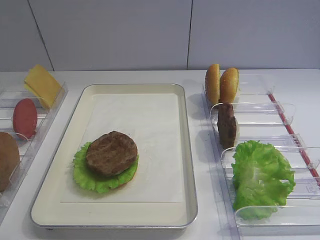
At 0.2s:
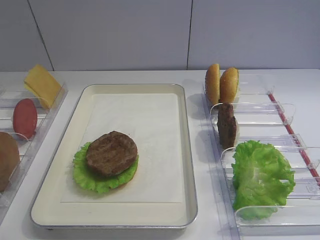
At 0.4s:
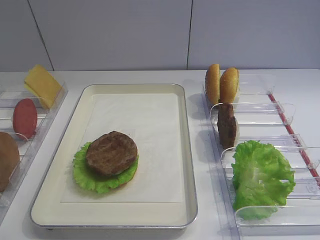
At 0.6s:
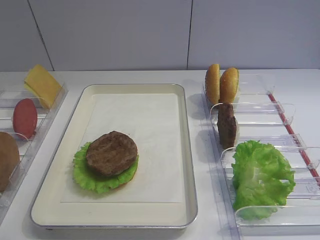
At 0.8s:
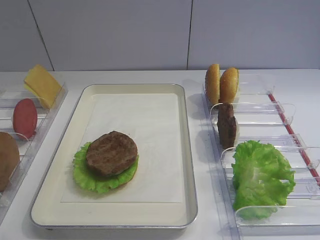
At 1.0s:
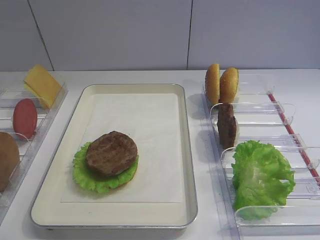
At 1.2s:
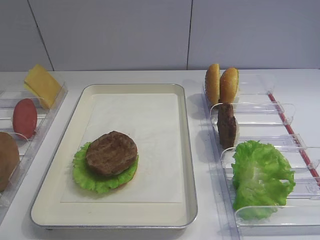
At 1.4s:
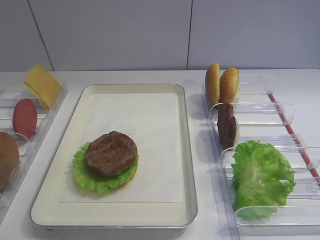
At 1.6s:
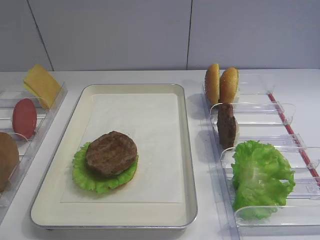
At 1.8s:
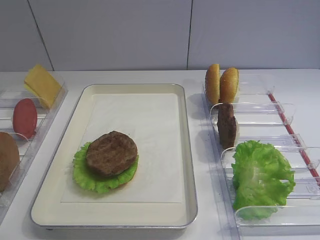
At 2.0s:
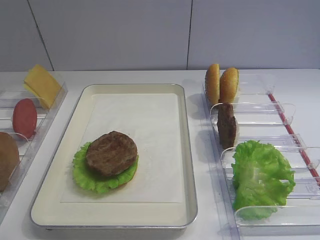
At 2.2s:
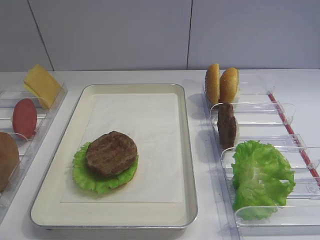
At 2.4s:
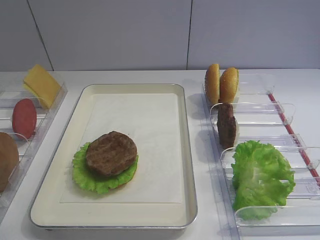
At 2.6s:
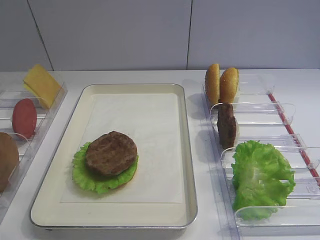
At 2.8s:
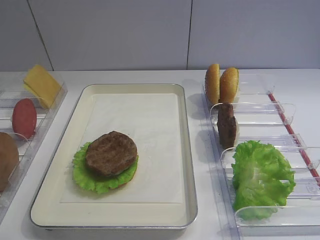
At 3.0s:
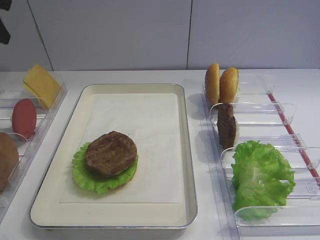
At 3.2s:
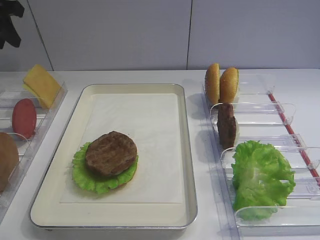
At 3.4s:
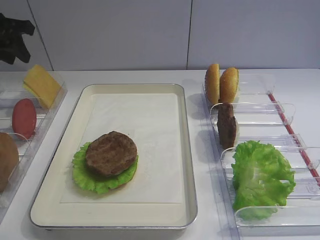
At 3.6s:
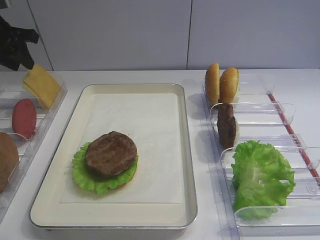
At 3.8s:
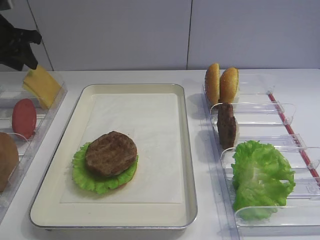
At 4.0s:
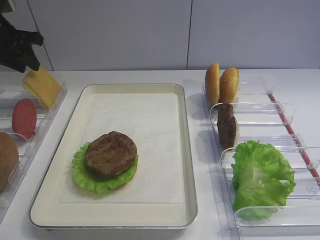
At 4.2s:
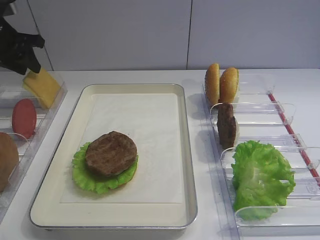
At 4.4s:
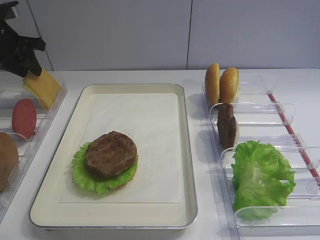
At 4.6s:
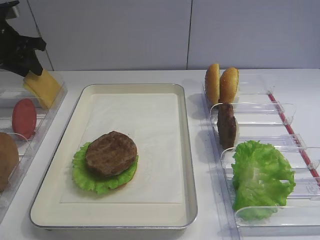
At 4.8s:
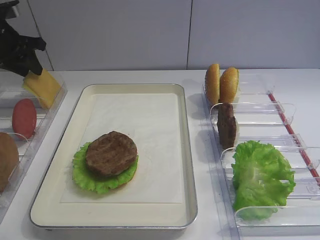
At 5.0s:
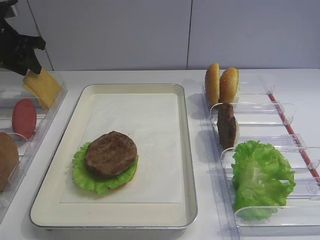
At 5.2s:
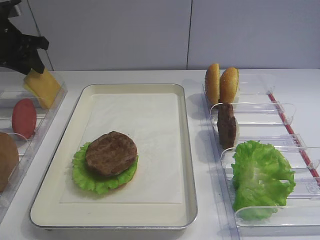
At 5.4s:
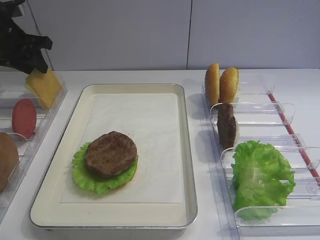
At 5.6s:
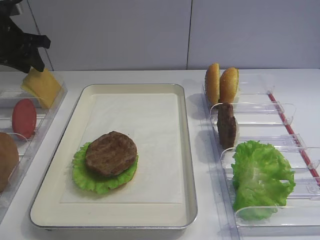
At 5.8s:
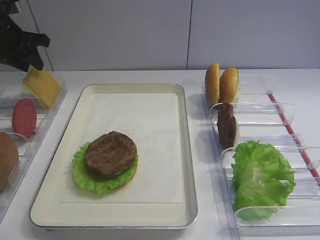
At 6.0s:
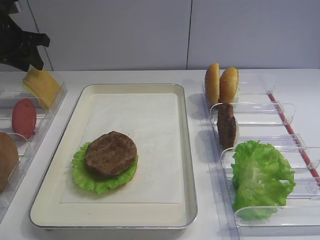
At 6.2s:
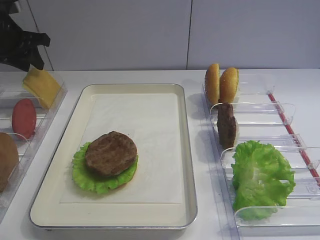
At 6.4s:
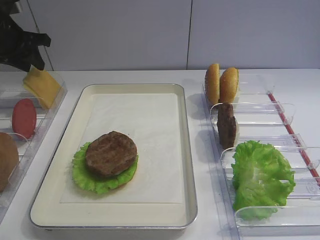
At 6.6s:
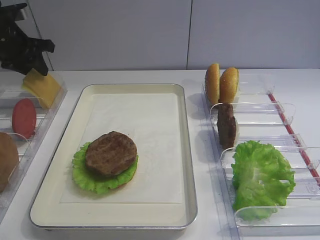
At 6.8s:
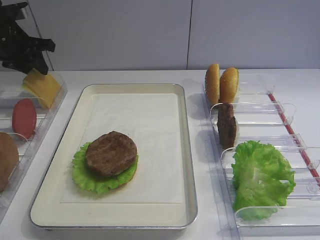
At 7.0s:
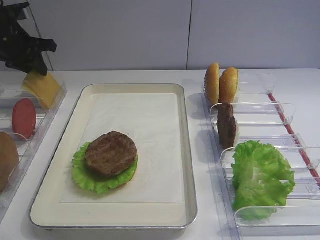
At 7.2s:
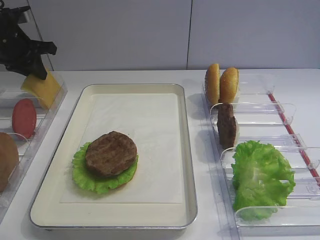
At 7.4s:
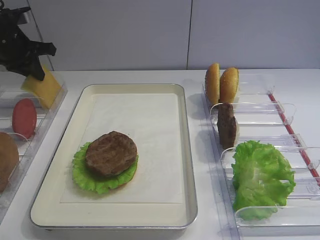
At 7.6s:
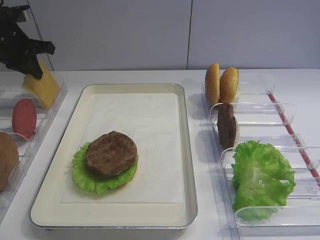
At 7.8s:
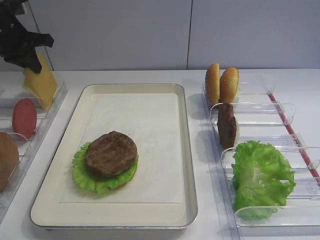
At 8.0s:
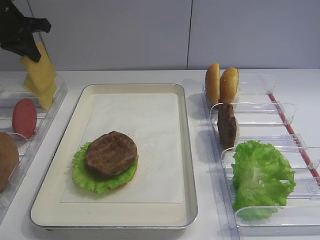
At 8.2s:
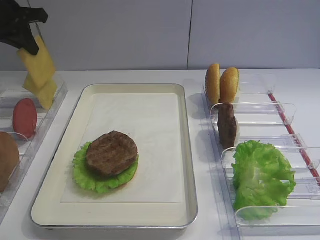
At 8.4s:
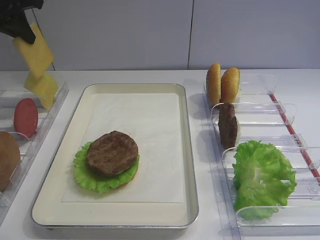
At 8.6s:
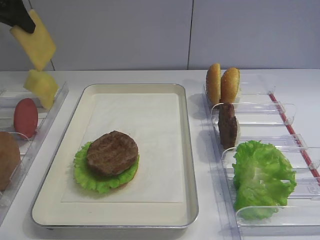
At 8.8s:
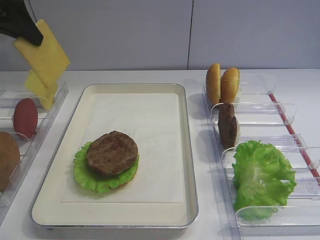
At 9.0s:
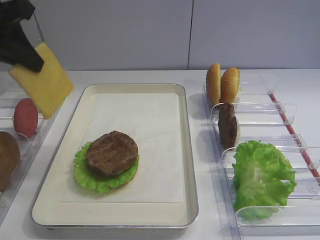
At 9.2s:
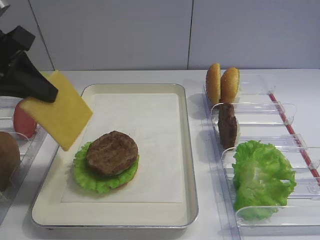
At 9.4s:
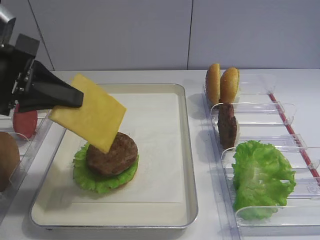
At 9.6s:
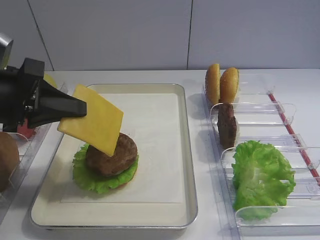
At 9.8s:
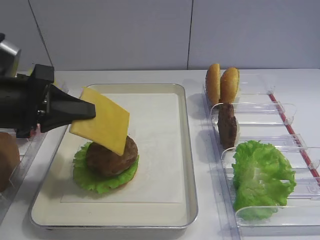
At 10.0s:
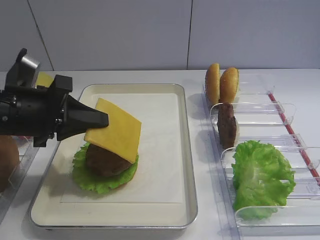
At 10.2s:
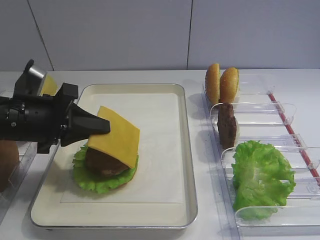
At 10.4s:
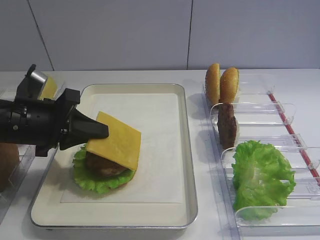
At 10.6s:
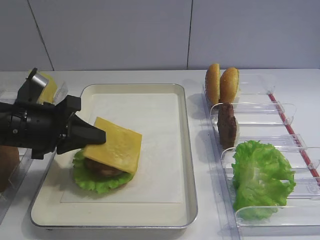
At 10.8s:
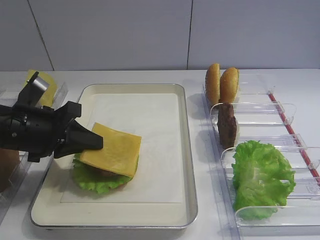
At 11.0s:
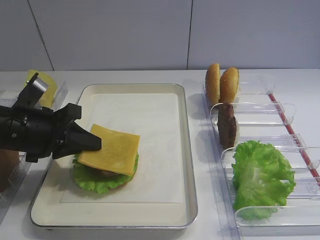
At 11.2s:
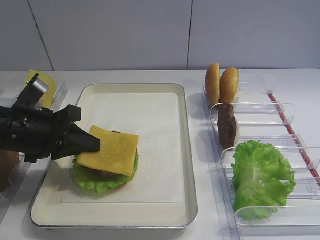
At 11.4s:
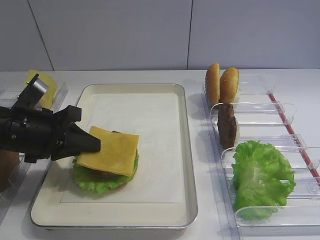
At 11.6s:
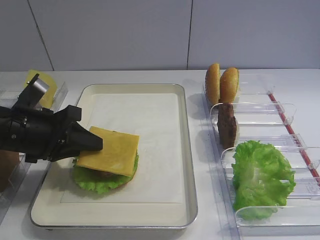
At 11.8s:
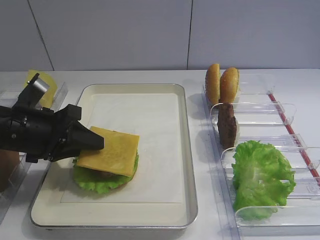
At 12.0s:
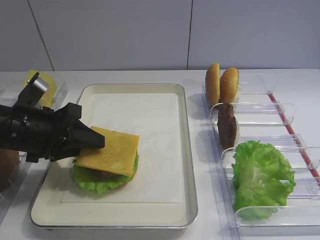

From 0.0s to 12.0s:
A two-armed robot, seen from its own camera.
Step, from 0.0s to 7.6s: Pick up the cheese slice with the left gripper.
From 3.0s to 4.4s: The left gripper shifts about 15 cm downward and forward.
From 4.4s to 6.0s: The two grippers keep their place.
From 6.0s to 7.6s: The left gripper closes its fingers.
From 7.6s to 9.0s: The left gripper is displaced backward and upward by about 20 cm.
From 9.0s to 10.4s: The left gripper heads downward, covering approximately 15 cm.
From 10.4s to 12.0s: The left gripper opens.

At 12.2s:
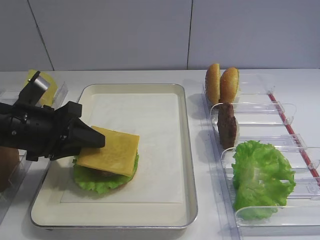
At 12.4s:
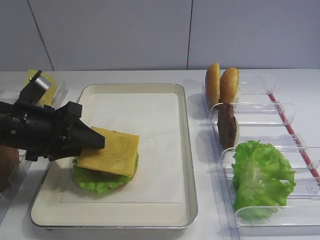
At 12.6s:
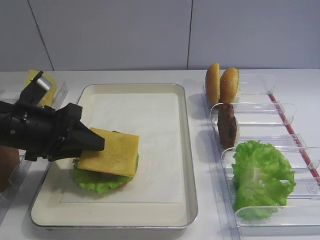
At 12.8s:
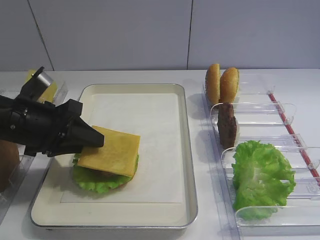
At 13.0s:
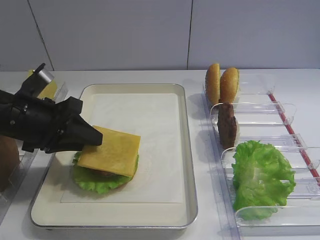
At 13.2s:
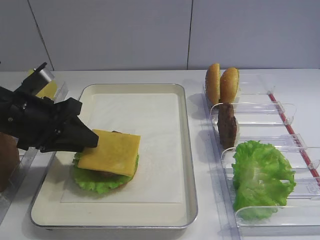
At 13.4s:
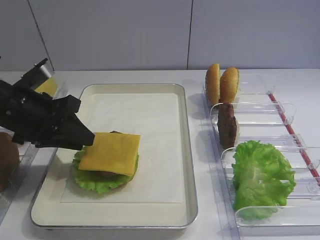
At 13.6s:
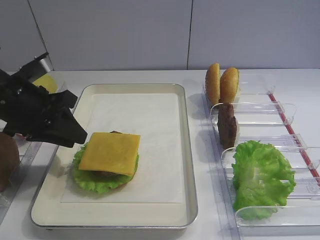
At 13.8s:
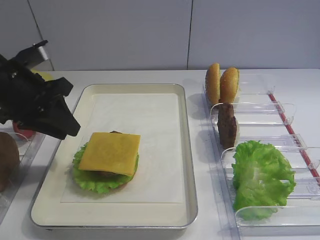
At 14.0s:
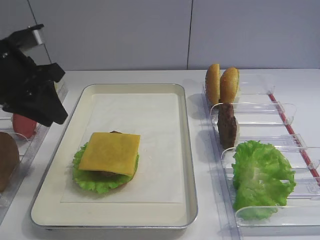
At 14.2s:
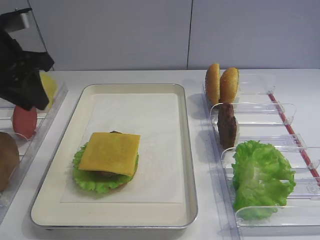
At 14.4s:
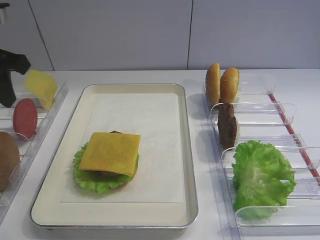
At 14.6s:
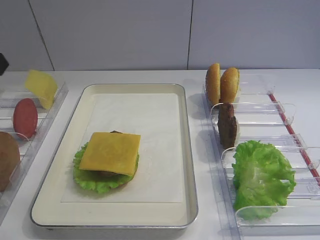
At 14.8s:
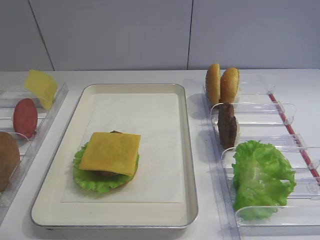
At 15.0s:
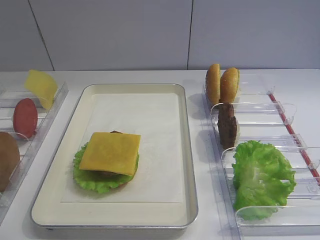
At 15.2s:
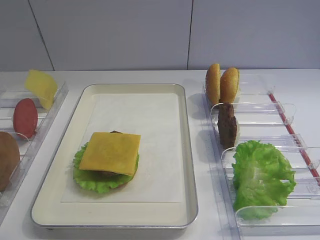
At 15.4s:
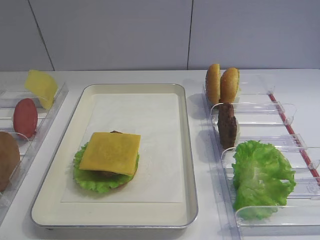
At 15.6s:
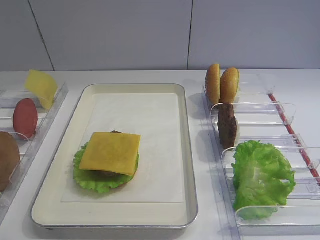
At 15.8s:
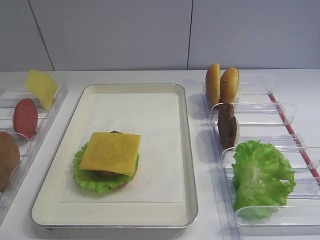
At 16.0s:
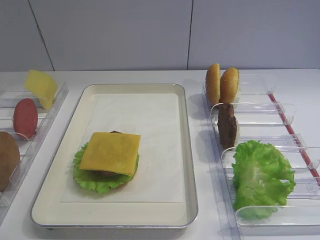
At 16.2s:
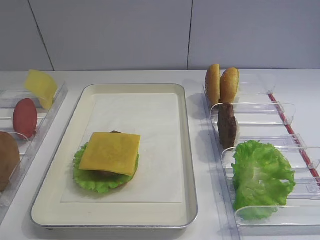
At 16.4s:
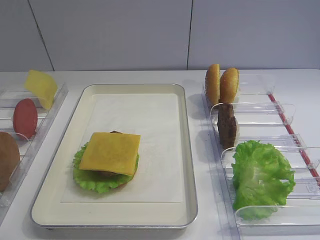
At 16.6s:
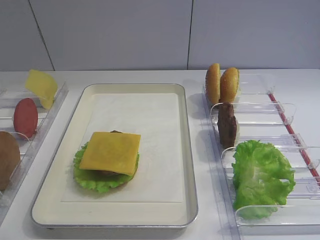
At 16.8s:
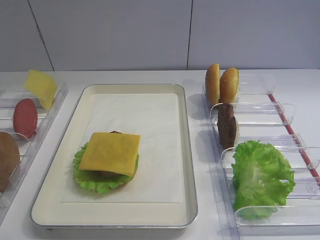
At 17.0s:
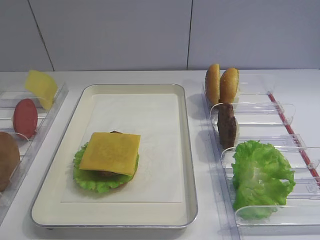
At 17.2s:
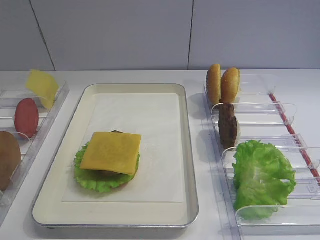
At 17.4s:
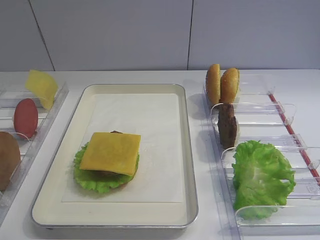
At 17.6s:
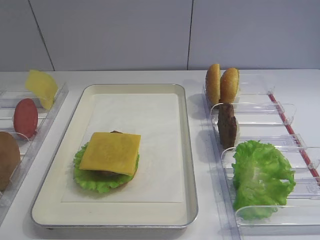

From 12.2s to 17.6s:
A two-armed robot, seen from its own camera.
From 12.2s to 13.6s: There are only small adjustments of the grippers.
From 13.6s to 15.0s: The left gripper goes approximately 20 cm upward, backward and to the left.

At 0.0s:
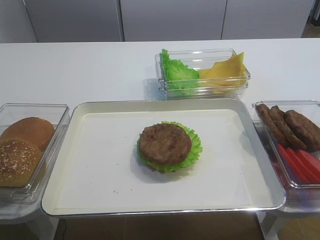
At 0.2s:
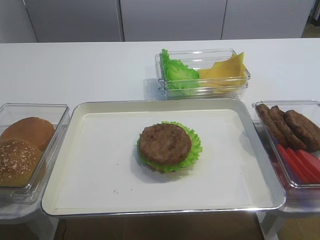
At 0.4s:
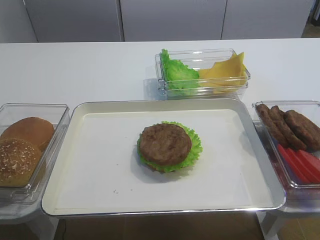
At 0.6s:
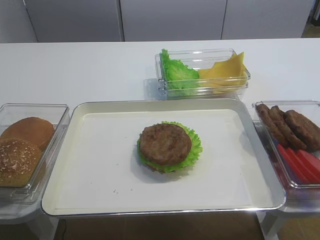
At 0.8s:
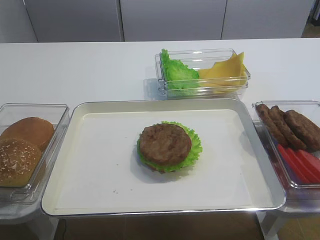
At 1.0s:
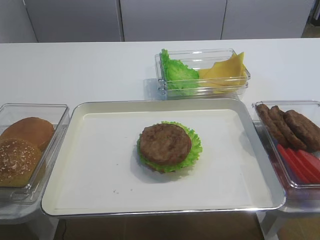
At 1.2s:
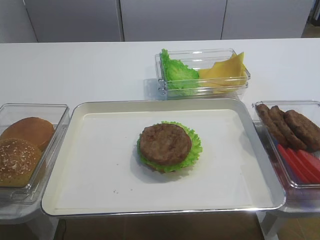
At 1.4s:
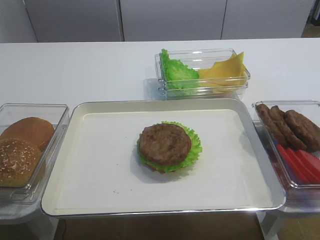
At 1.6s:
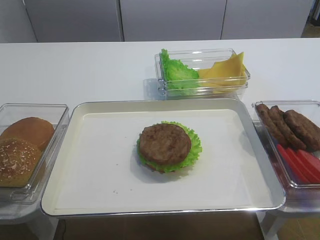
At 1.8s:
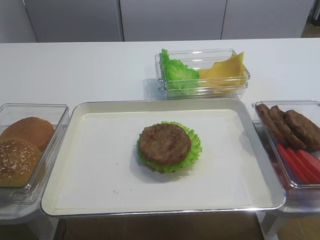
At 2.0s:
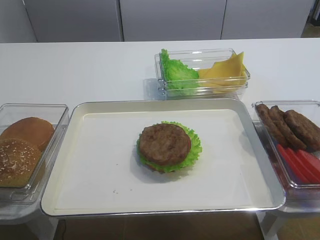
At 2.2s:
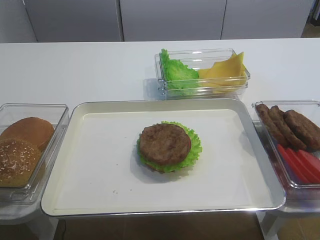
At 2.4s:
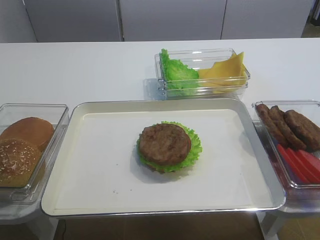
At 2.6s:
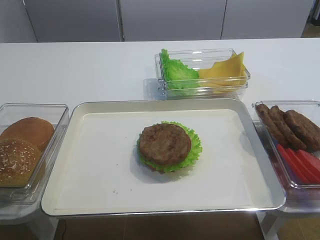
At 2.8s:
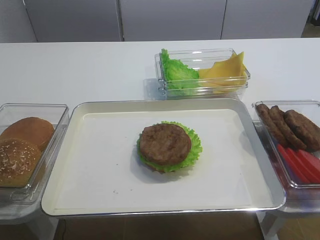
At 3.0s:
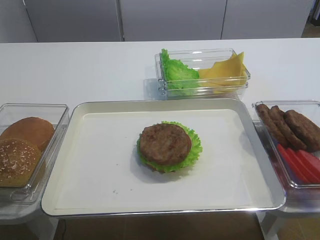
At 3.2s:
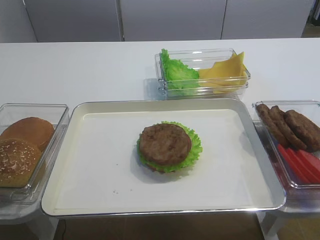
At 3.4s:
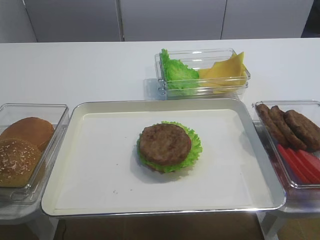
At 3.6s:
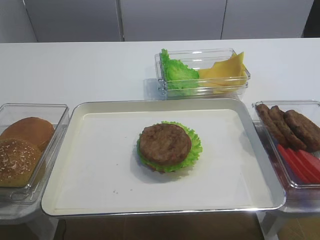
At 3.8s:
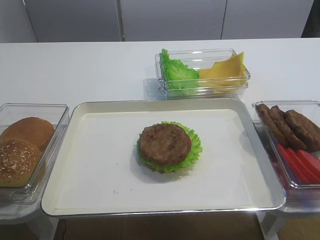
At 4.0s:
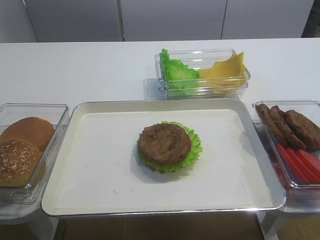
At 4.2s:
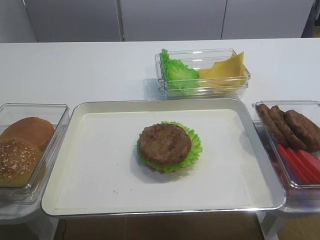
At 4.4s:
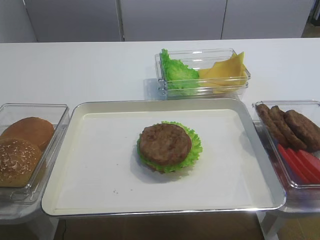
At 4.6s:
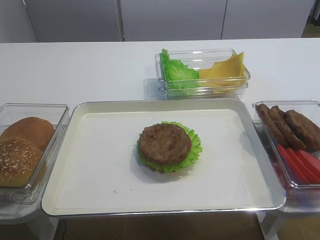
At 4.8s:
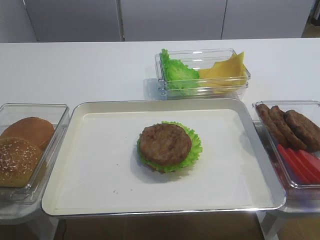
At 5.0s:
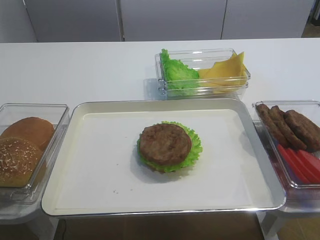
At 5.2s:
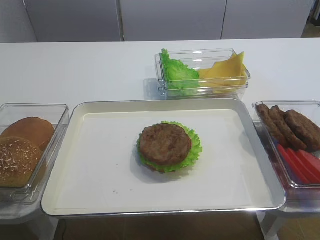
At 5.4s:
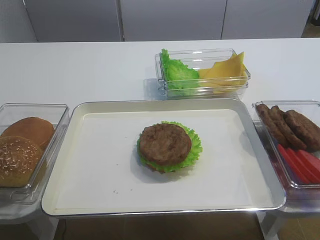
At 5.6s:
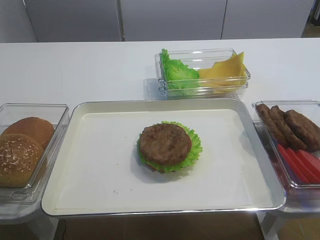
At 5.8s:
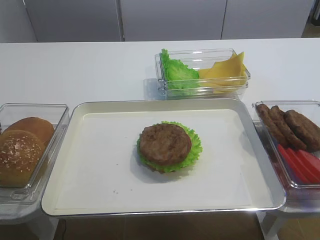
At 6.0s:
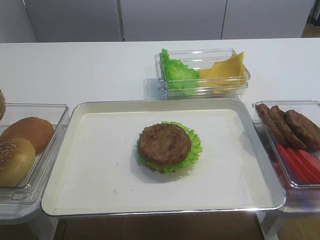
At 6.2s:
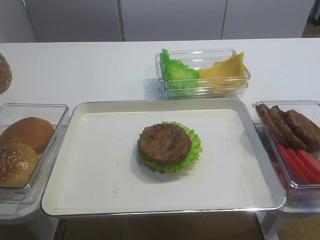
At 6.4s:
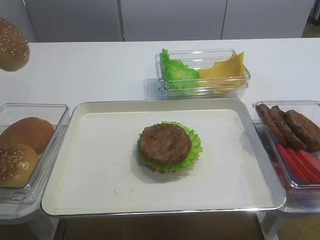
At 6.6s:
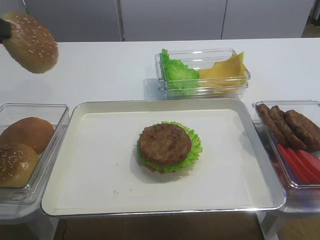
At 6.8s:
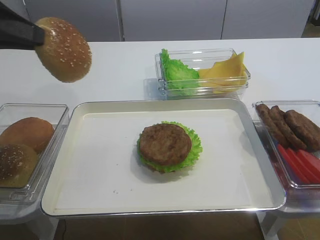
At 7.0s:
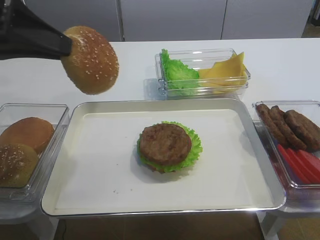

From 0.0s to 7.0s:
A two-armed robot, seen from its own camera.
Step, from 0.0s to 6.0s: Pick up the hamburger lid with the left gripper.
From 5.6s to 7.0s: The left gripper goes some 15 cm to the right and upward.
